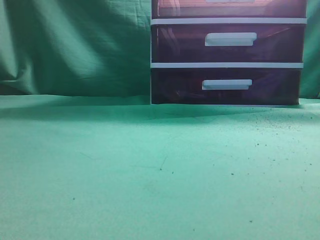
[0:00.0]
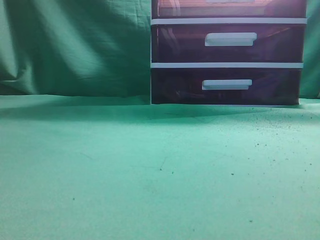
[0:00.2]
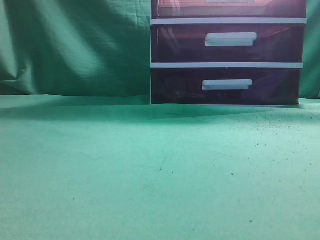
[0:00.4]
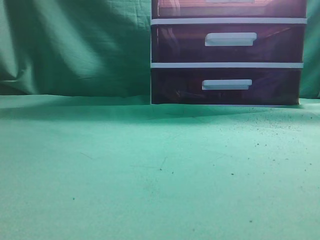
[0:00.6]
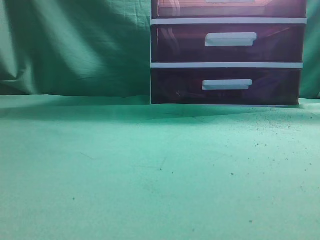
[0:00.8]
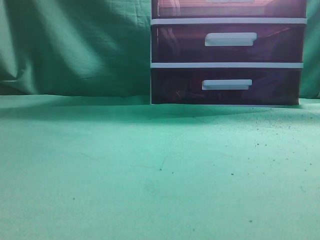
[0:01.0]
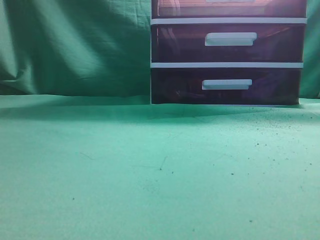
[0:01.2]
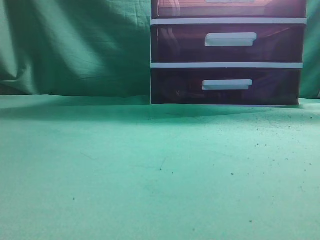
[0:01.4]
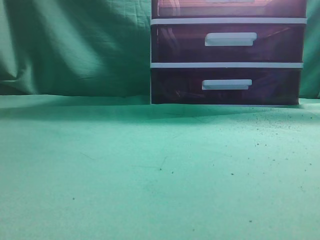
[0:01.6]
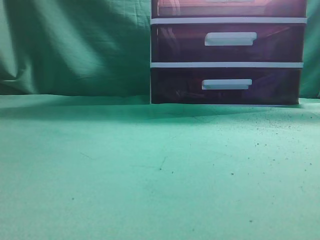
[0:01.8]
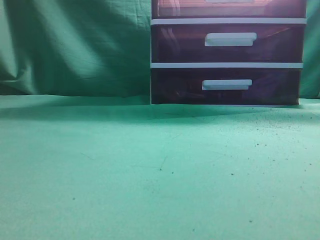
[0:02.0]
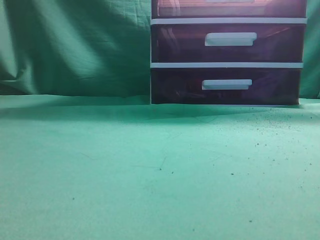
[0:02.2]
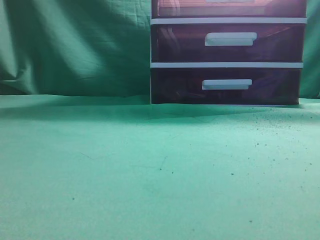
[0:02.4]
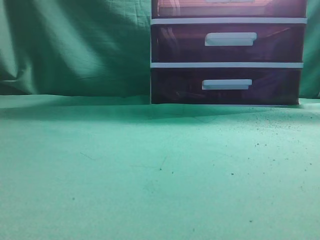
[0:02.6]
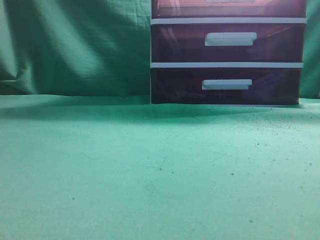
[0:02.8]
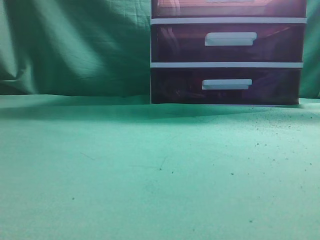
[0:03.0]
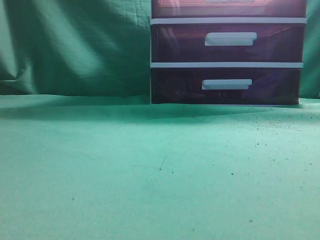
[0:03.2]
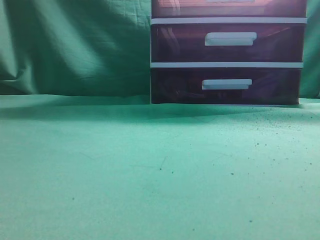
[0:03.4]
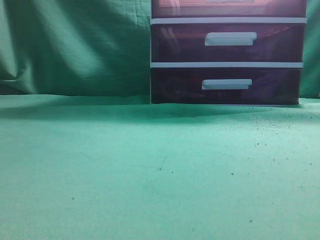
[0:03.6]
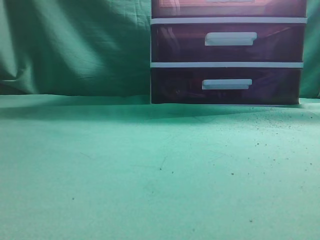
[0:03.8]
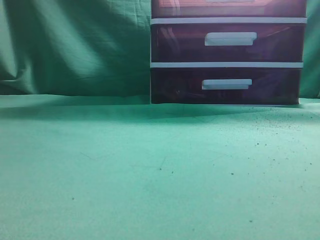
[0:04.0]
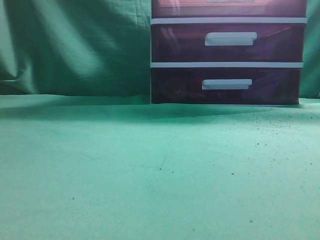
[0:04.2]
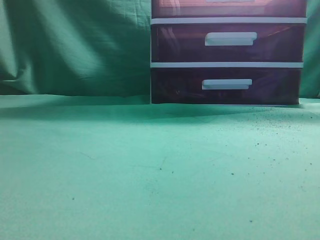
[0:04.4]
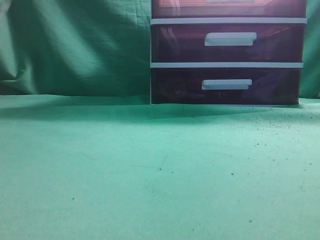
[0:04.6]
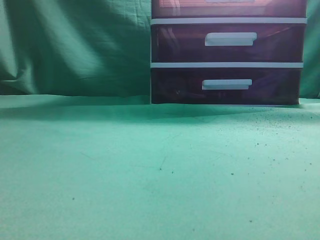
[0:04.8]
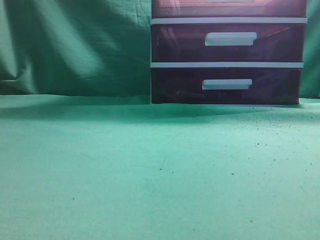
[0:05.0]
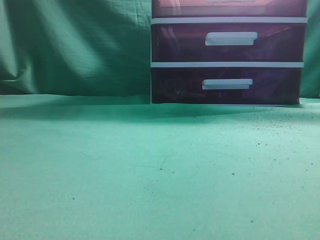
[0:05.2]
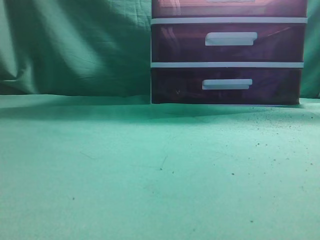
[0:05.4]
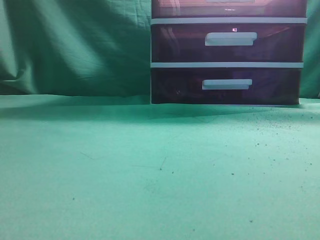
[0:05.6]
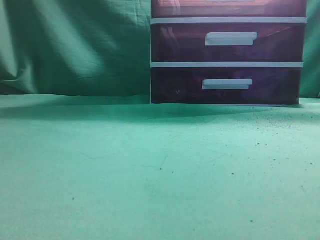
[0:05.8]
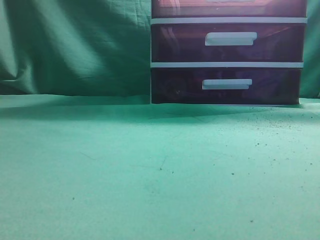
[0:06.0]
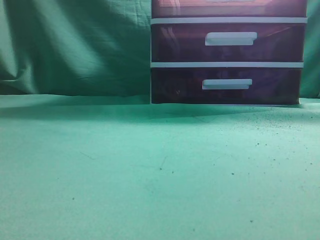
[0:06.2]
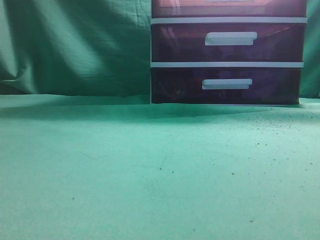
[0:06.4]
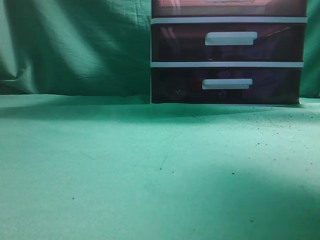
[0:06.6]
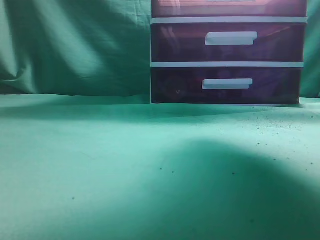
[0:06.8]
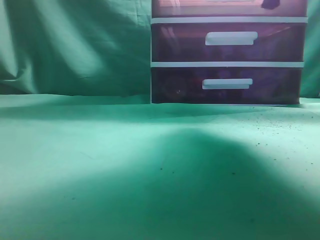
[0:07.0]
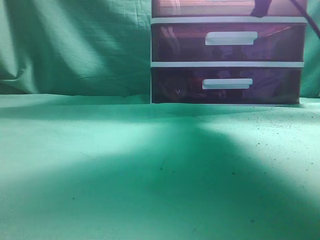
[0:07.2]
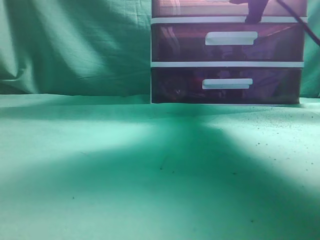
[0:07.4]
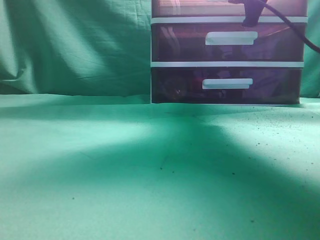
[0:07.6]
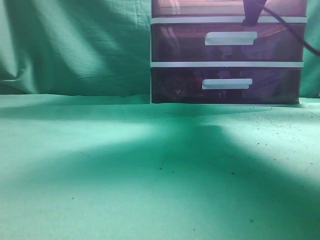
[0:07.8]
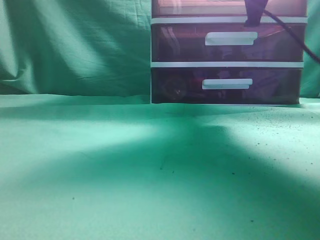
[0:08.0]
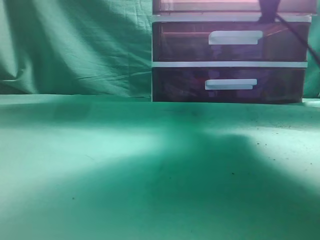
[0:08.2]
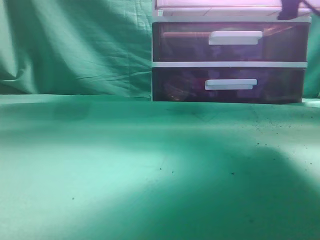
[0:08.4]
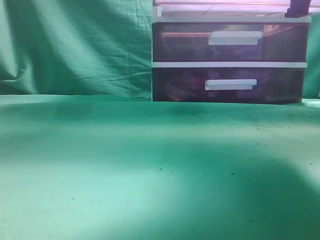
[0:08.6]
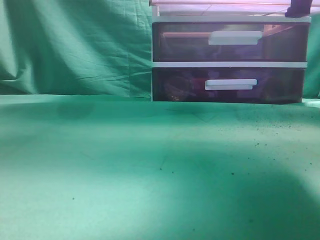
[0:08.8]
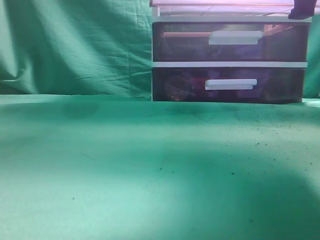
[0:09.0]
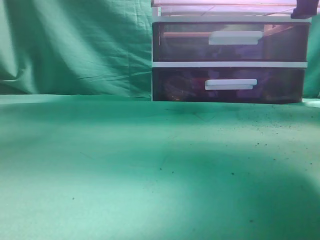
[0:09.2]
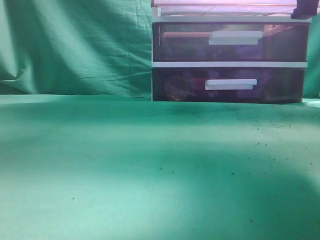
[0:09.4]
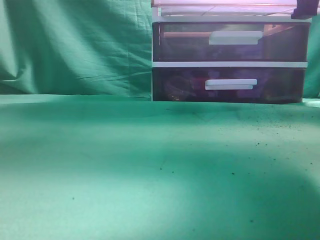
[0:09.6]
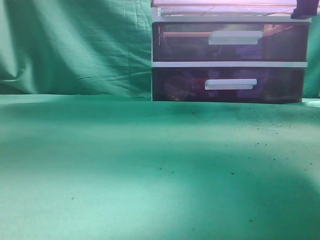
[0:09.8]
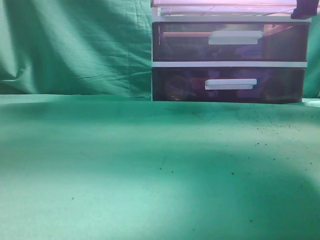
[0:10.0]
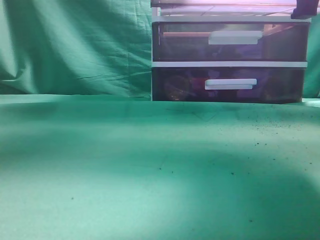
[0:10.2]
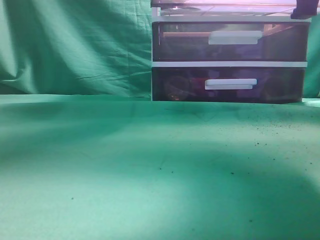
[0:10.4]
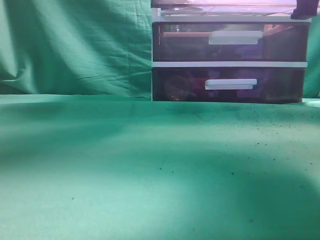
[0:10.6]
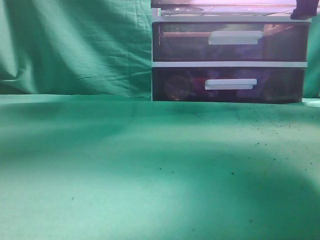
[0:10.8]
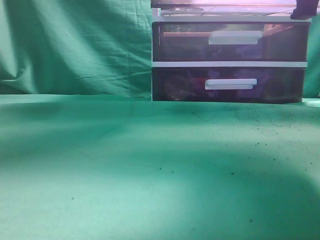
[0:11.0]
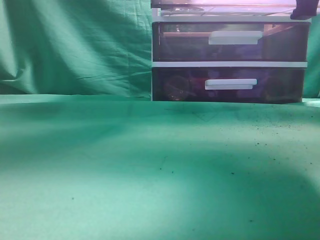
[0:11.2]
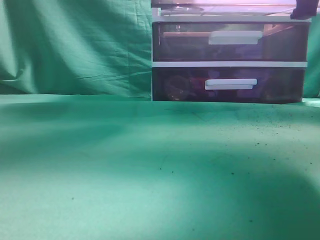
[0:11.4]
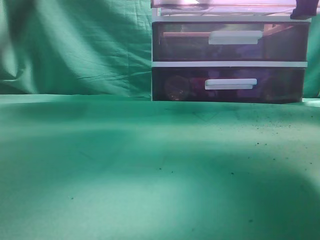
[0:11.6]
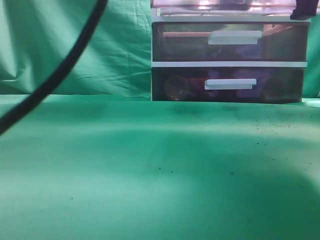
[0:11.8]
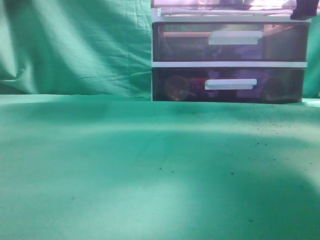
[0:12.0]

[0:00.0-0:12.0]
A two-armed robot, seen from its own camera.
Task of the whole recording: place the water bottle into the drawer.
Step, 0:00.0 to 0:09.2: Open the drawer.
0:06.0 to 0:07.6: The right gripper moves forward, downward and to the left, about 25 cm.
0:07.6 to 0:09.0: The right gripper is displaced backward by roughly 15 cm.
0:09.0 to 0:10.4: The left gripper moves forward and to the right, roughly 25 cm.
0:10.4 to 0:12.0: The left gripper heads to the right, covering some 10 cm, and opens up.

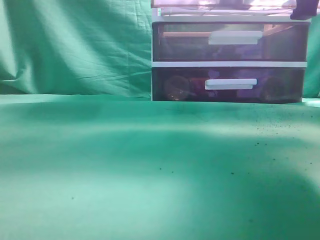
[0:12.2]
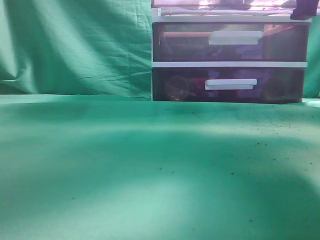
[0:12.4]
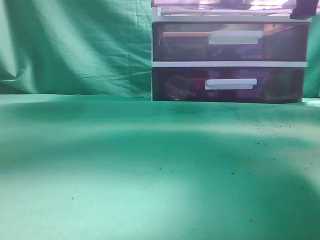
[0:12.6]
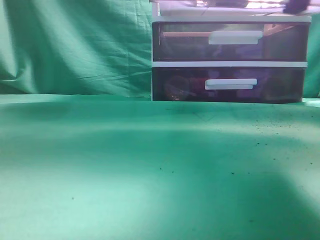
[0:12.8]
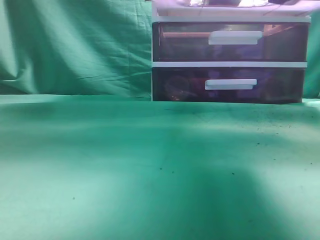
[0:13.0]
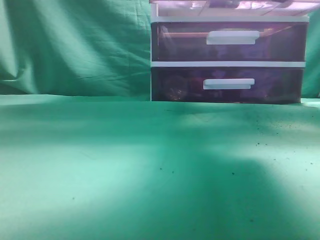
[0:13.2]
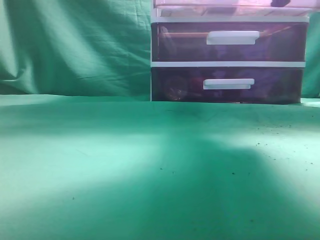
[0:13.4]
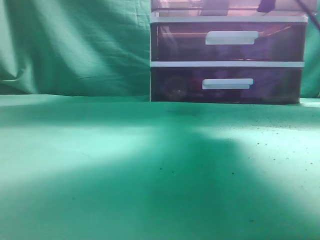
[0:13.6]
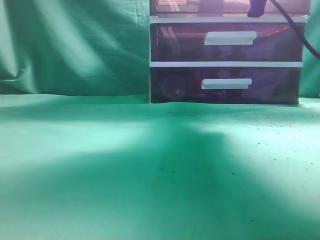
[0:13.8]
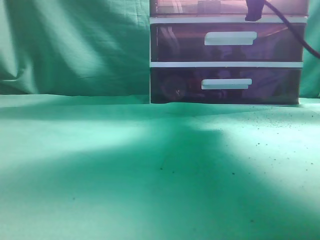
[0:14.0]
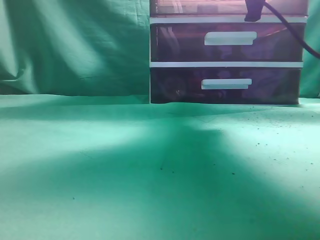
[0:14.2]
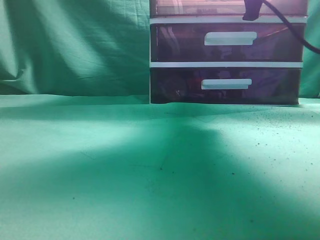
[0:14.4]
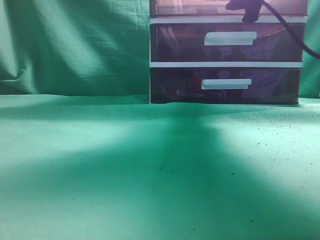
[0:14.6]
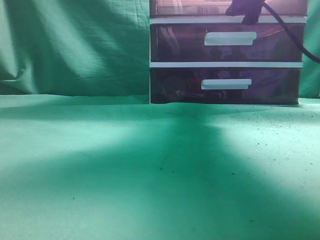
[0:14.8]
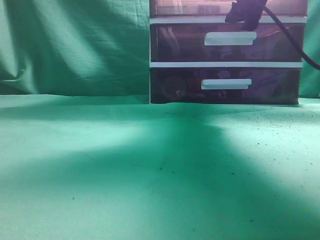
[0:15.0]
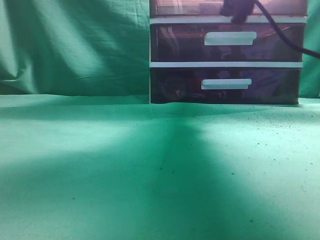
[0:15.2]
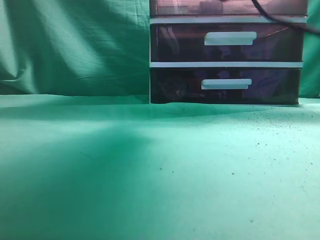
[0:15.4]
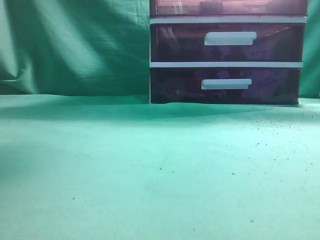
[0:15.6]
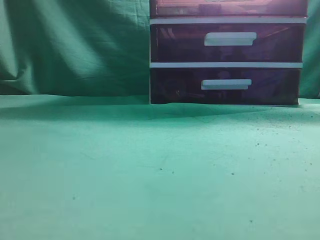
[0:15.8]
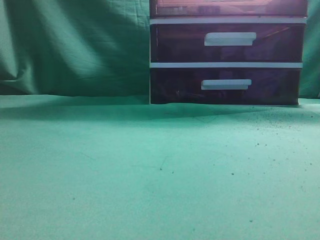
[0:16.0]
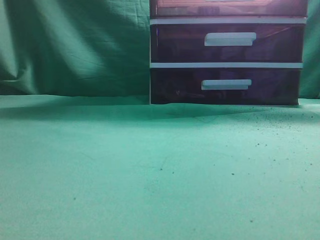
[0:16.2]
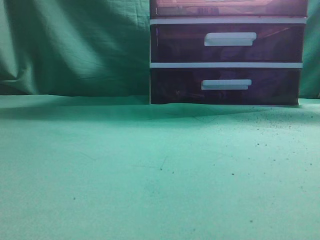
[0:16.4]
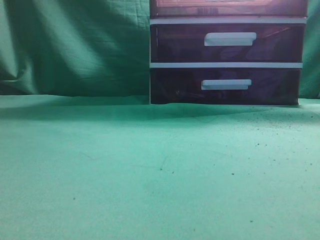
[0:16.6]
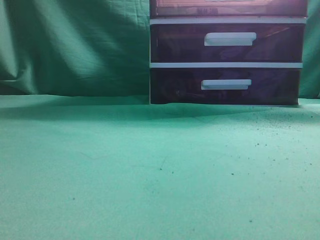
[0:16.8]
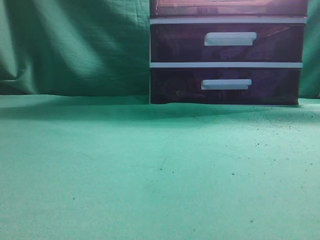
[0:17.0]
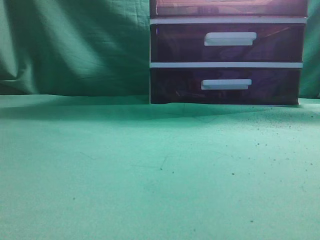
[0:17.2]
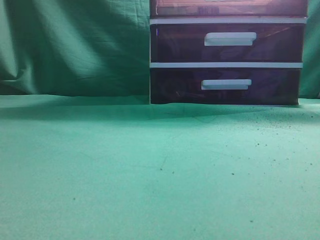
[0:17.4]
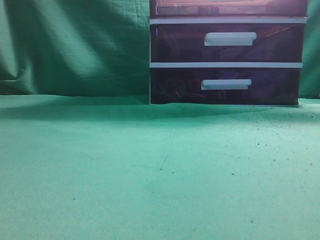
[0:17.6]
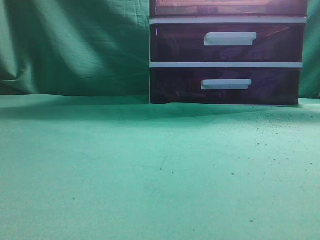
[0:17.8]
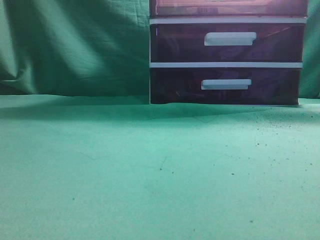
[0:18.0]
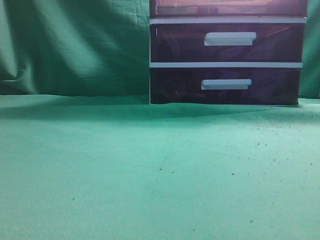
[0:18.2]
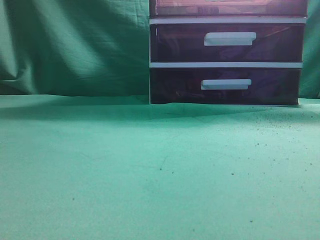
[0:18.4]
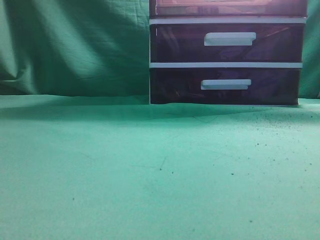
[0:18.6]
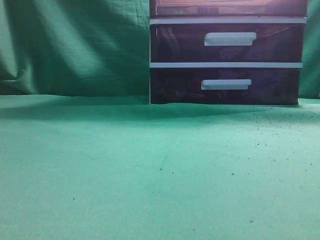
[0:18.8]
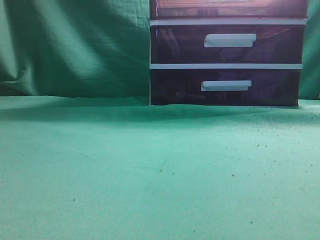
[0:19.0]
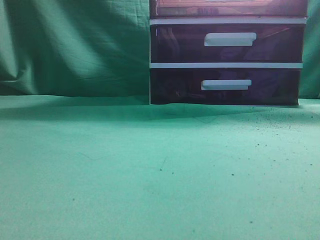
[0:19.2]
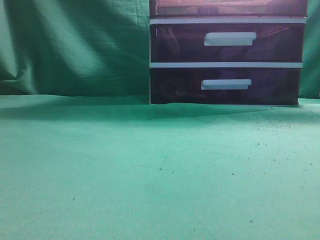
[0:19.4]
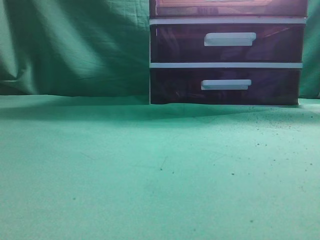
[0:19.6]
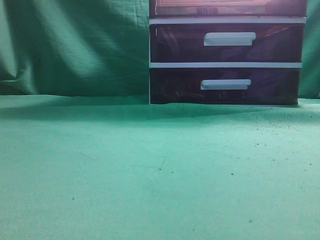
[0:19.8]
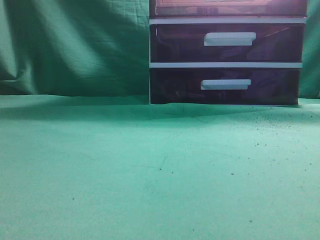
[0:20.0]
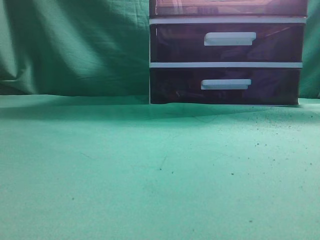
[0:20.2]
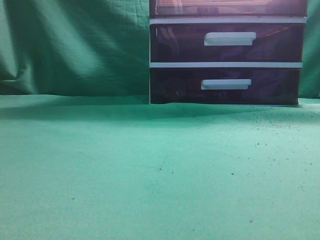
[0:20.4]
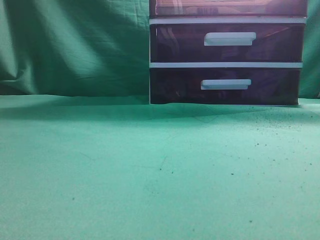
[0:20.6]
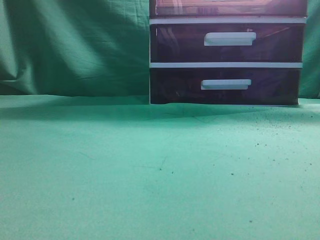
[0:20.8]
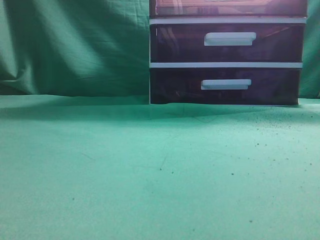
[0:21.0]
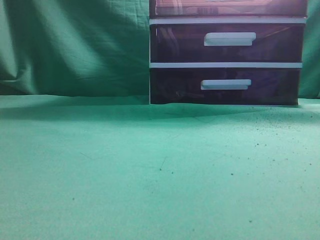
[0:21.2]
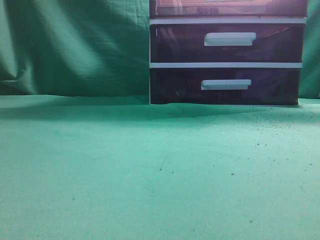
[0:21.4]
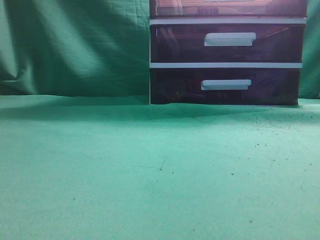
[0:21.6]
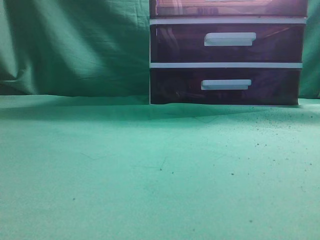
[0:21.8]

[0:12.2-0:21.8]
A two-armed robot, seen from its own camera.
Task of the whole recording: place the water bottle into the drawer.
Step, 0:12.4 to 0:14.8: Close the drawer.
0:12.2 to 0:13.8: The left gripper is displaced backward and to the left by approximately 35 cm, and closes up. The right gripper heads forward, covering approximately 15 cm.
0:13.8 to 0:15.4: The right gripper goes about 5 cm to the left, and opens.
0:15.4 to 0:17.0: The right gripper goes approximately 30 cm backward and upward, and closes; the left gripper is displaced downward by approximately 20 cm.
